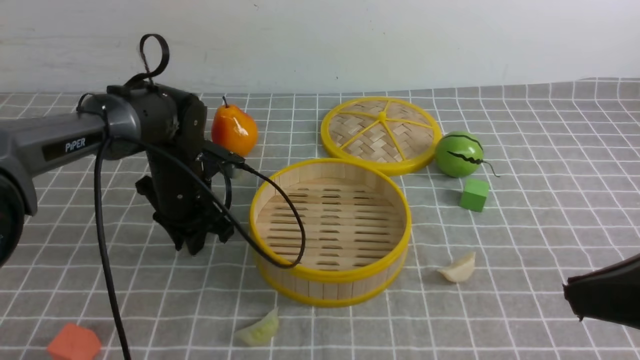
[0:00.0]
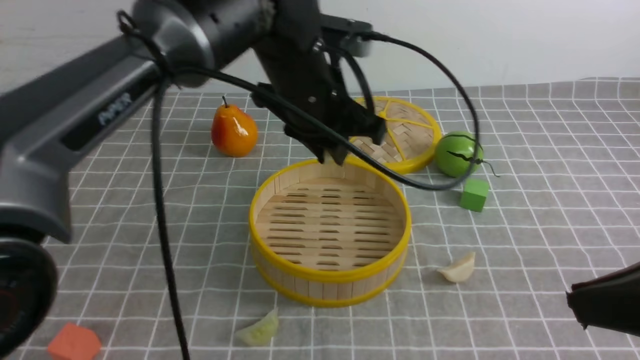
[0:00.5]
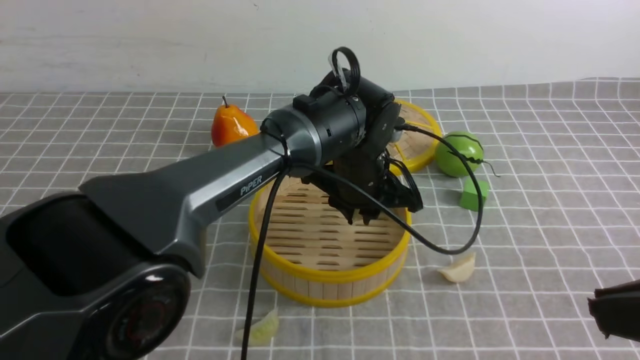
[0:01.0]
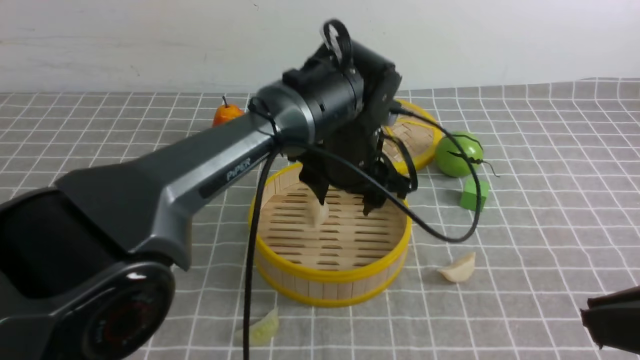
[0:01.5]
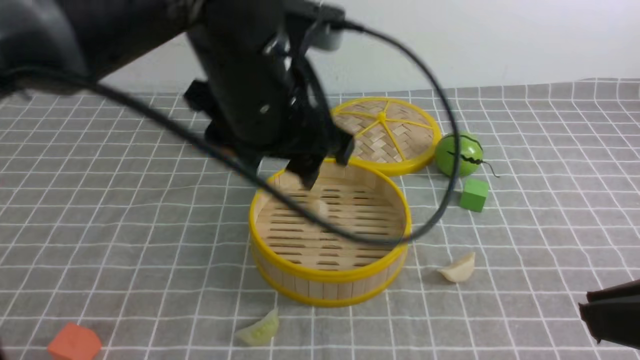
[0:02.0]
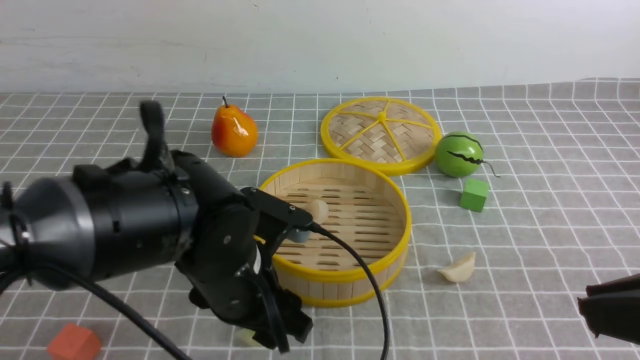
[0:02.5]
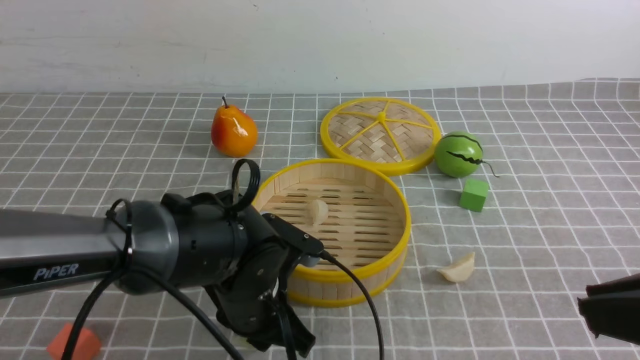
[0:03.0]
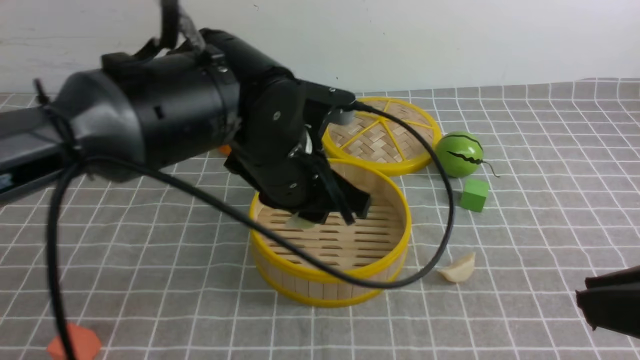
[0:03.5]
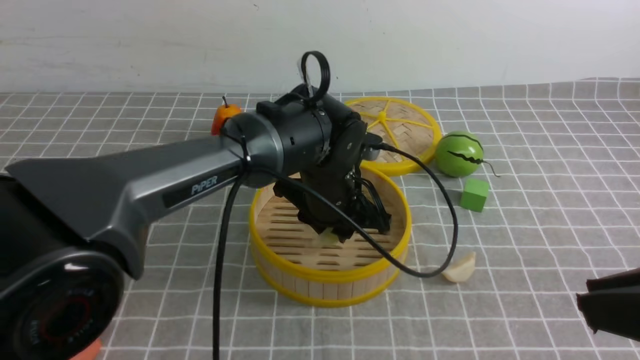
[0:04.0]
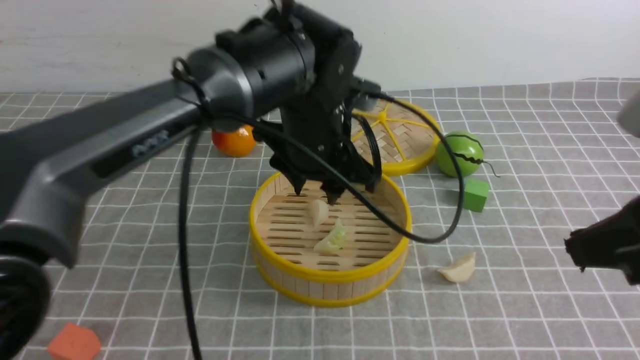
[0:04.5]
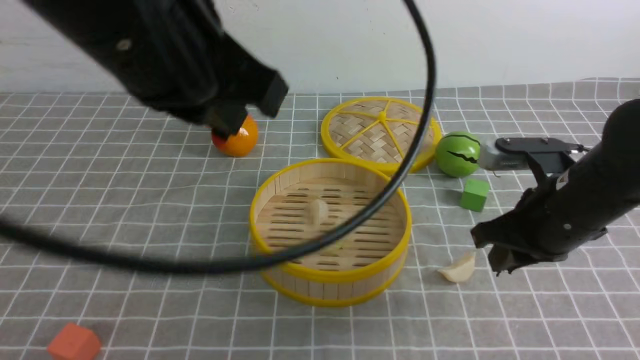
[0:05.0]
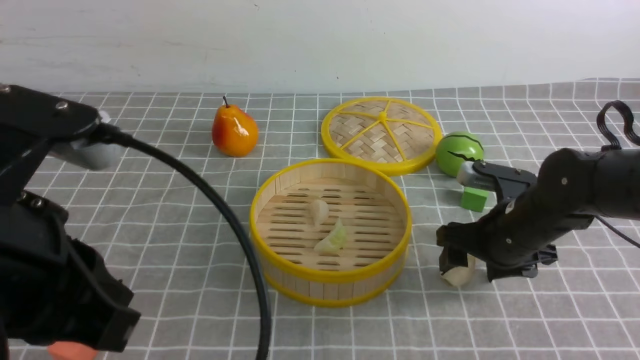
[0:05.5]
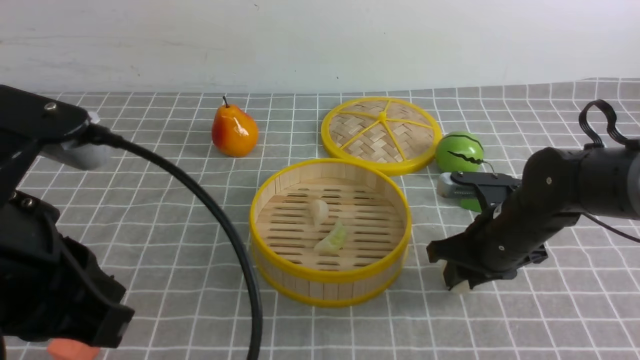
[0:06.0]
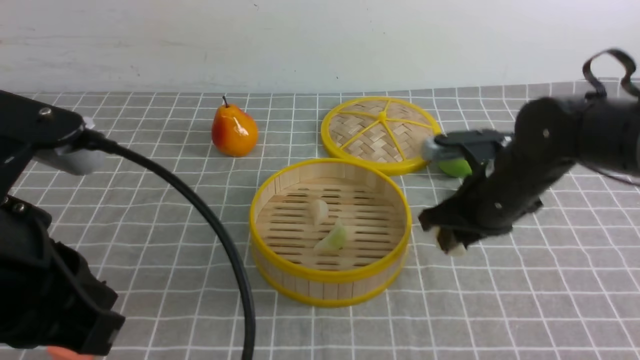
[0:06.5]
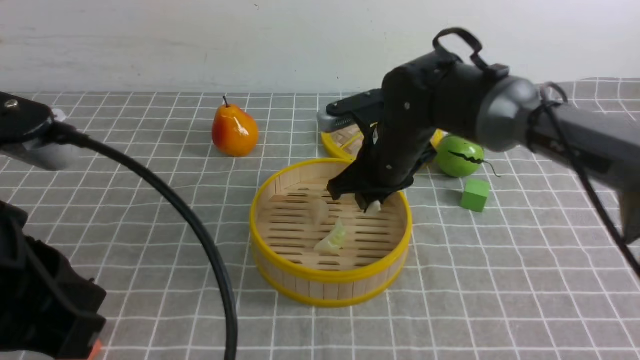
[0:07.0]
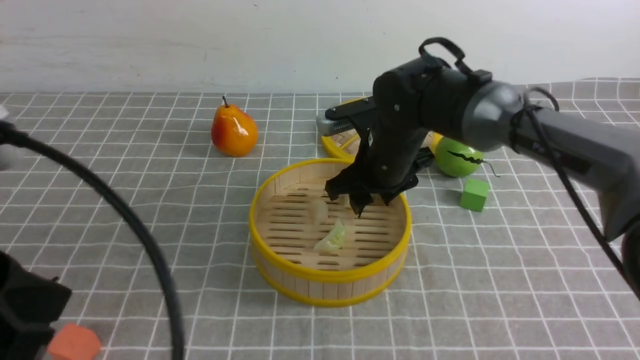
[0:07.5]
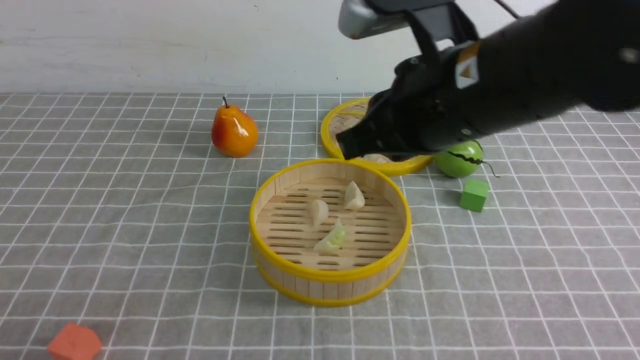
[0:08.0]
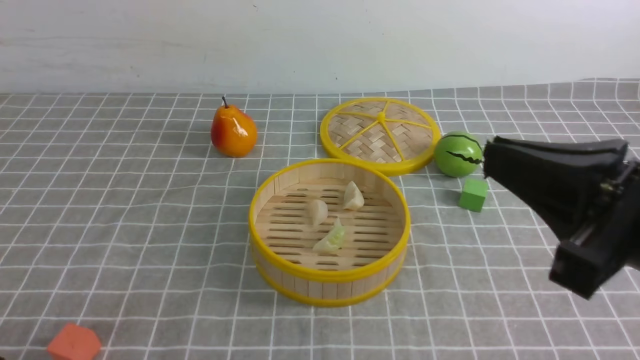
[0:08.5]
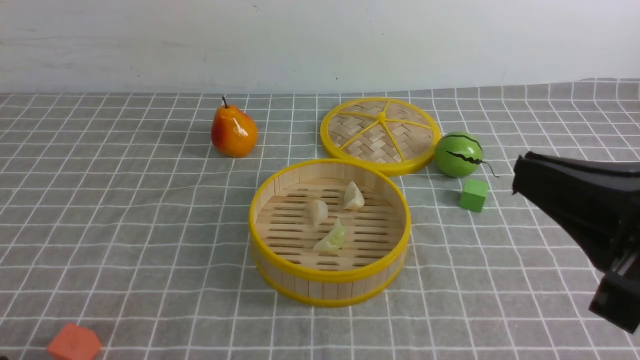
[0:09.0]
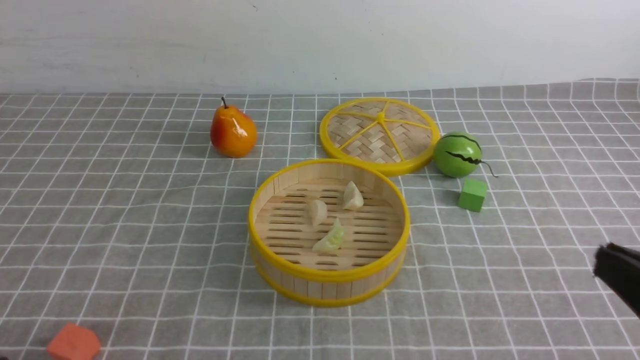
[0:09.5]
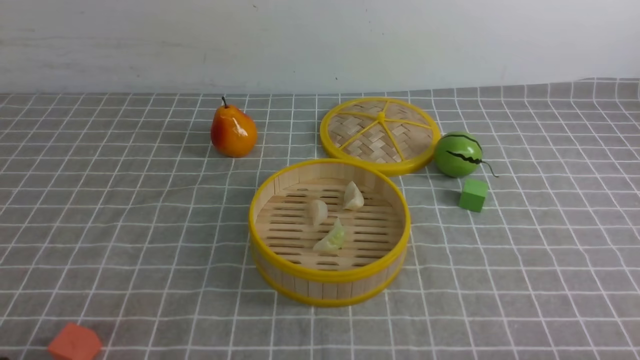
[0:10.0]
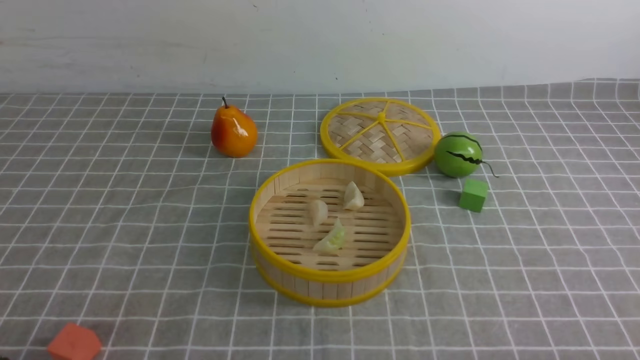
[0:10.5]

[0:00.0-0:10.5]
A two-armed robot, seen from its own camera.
Task of the whole recording: put the dumplings into the steamer on the table with the grey tablecloth.
Step, 0:00.5 to 0:01.0: use the left arm to put the dumpling into the steamer.
Step, 0:01.5 to 0:03.0: use the left arm to grab a dumpling.
Step, 0:03.5 to 0:04.0: use the left arm to put the dumpling into the steamer.
Step, 0:04.5 to 0:06.0: use the right arm to grab a dumpling.
Step, 0:06.5 to 0:07.5: use the right arm to put the dumpling into the steamer.
0:00.0 to 0:02.0: The left gripper heads upward, backward and to the right, covering approximately 25 cm, and opens its fingers.
0:02.0 to 0:04.0: The left gripper swings up and down, roughly 15 cm each way, with 2 reversals, and closes.
0:04.0 to 0:06.5: The right gripper shifts about 30 cm forward and downward, and opens and closes again, while the left gripper heads backward, to the left and upward, covering roughly 35 cm, and closes.
0:06.5 to 0:08.5: The right gripper heads backward and upward, covering some 25 cm, and closes up. Meanwhile the left gripper travels backward, downward and to the left by roughly 15 cm.
0:08.5 to 0:10.5: The right gripper heads downward, to the right and backward, covering roughly 25 cm.

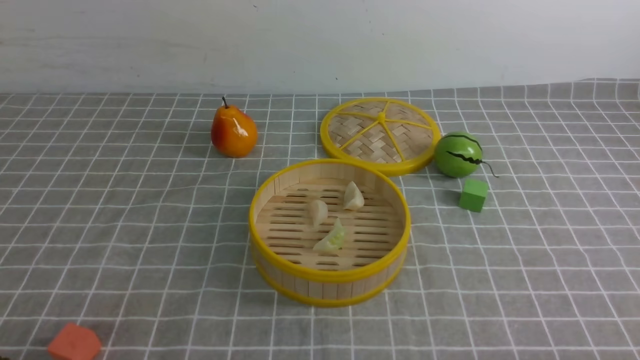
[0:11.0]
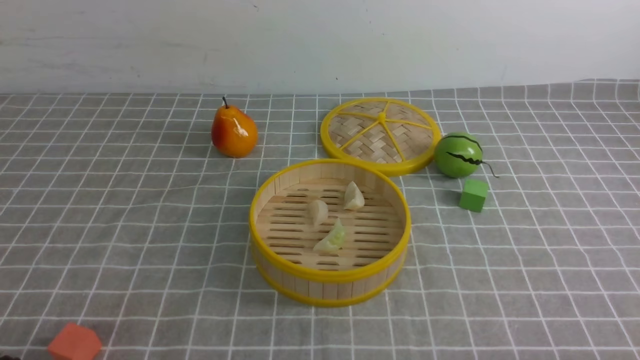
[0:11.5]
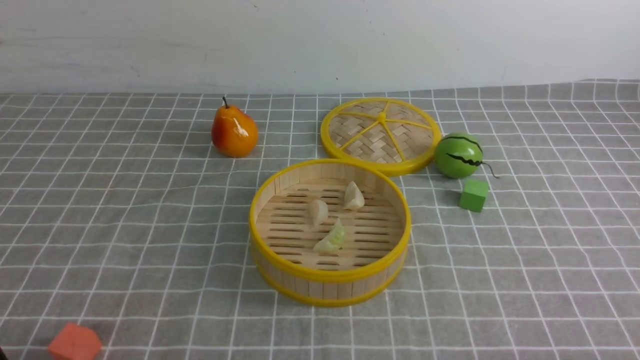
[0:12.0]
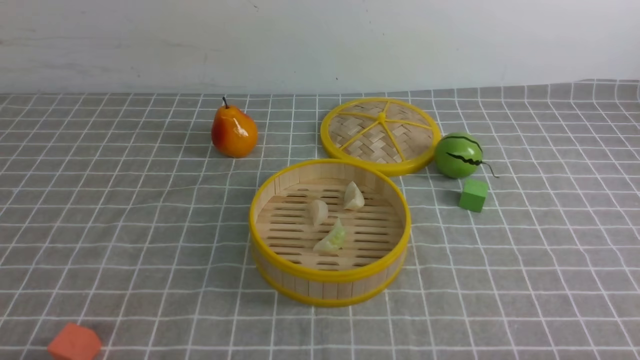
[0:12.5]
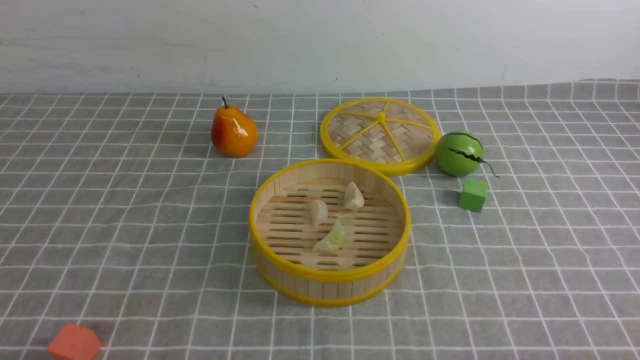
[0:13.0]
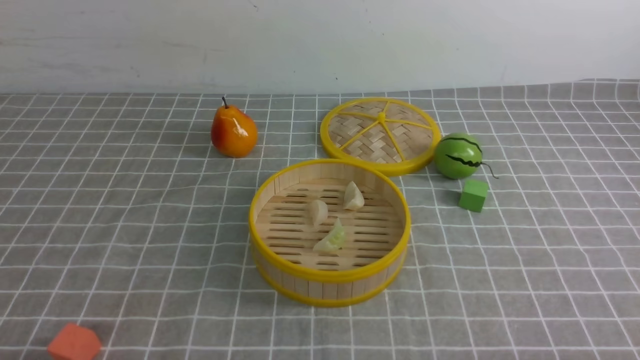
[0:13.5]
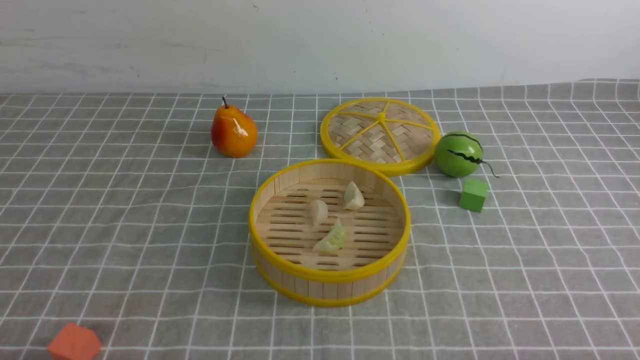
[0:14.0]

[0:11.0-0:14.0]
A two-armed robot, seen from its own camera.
Task of the whole recording: put the dumplings into the steamer on the table with the grey tablecloth.
0:12.5 to 0:14.0: Both grippers stay put.

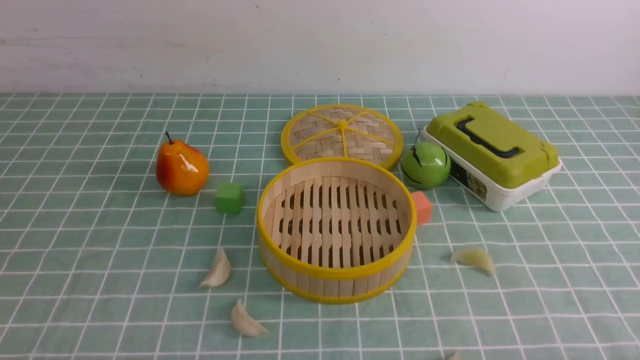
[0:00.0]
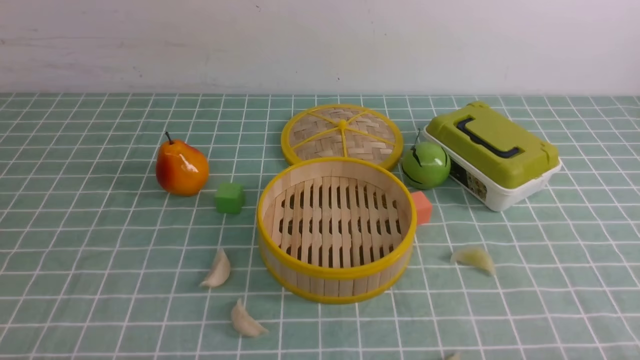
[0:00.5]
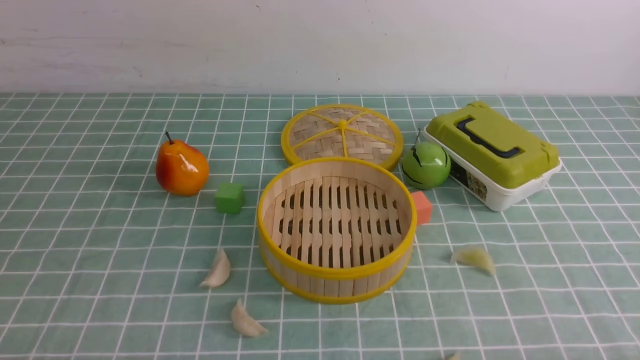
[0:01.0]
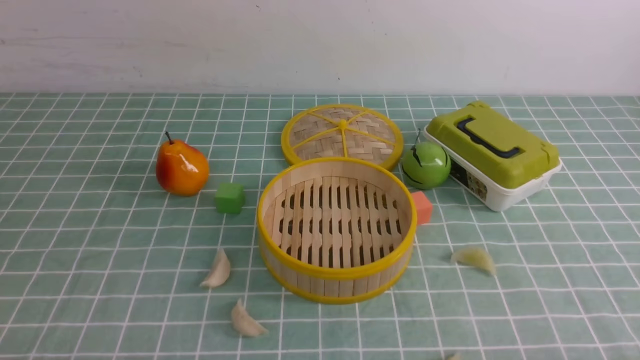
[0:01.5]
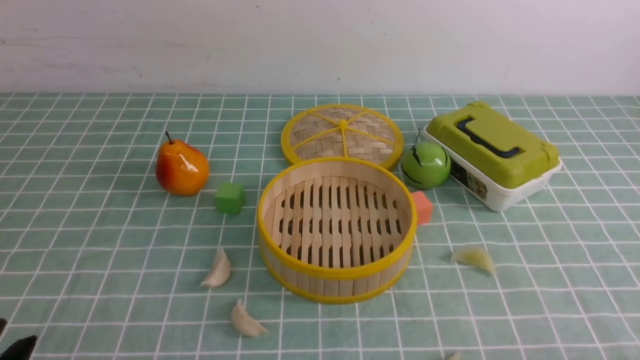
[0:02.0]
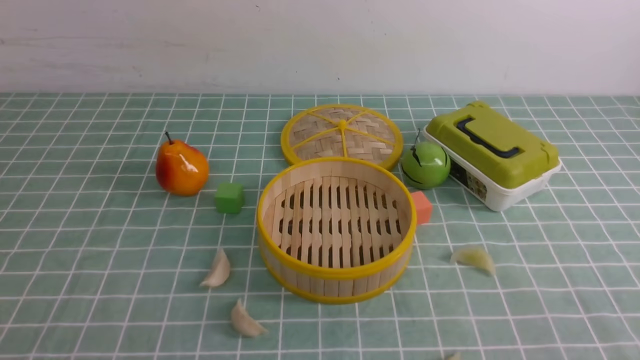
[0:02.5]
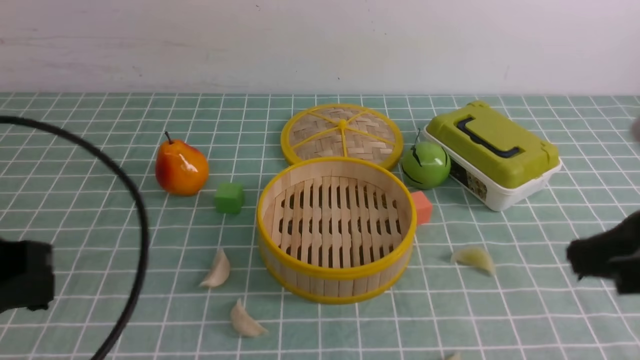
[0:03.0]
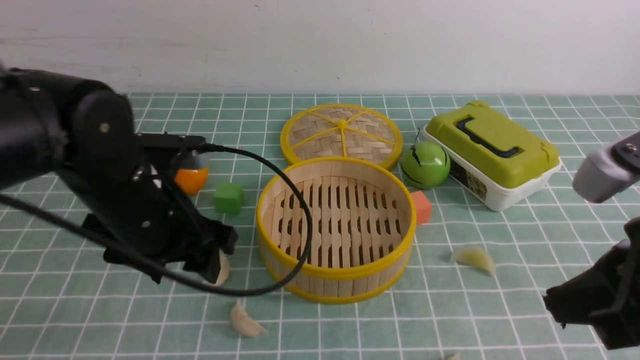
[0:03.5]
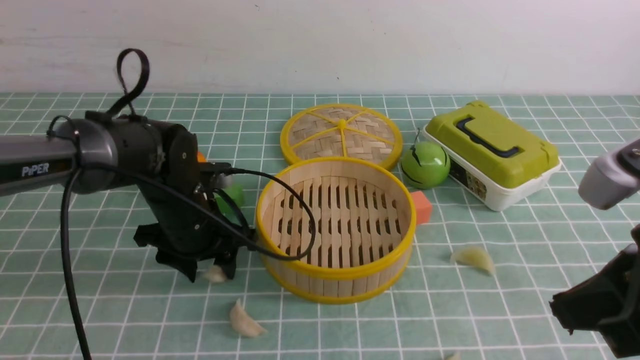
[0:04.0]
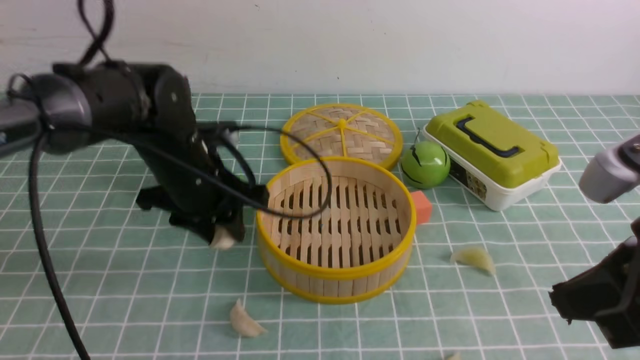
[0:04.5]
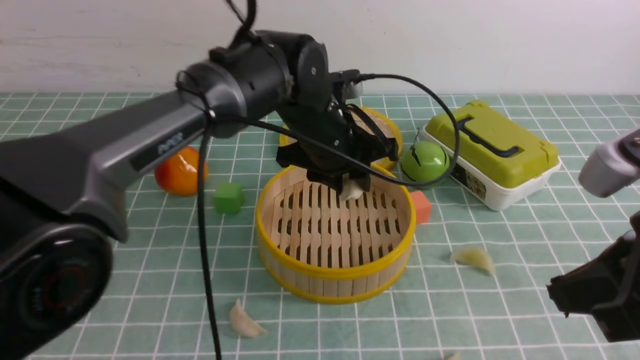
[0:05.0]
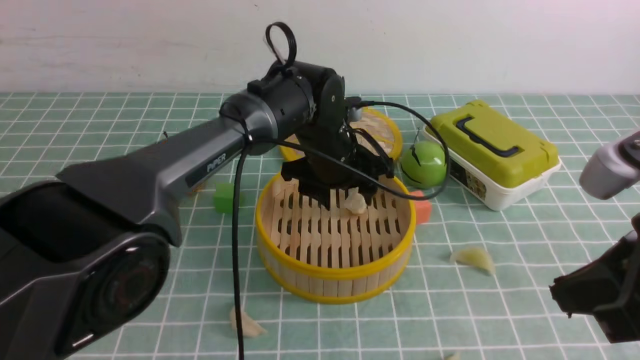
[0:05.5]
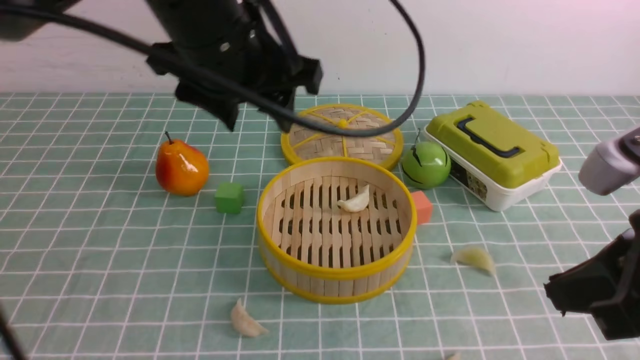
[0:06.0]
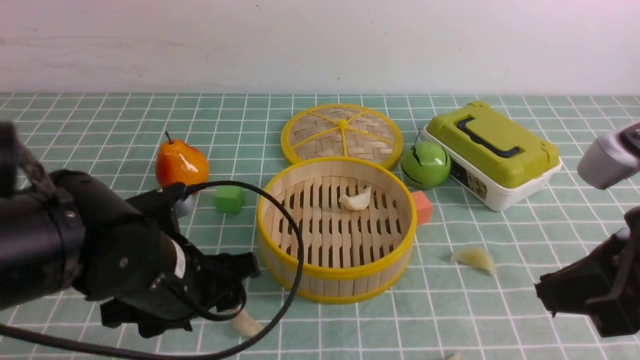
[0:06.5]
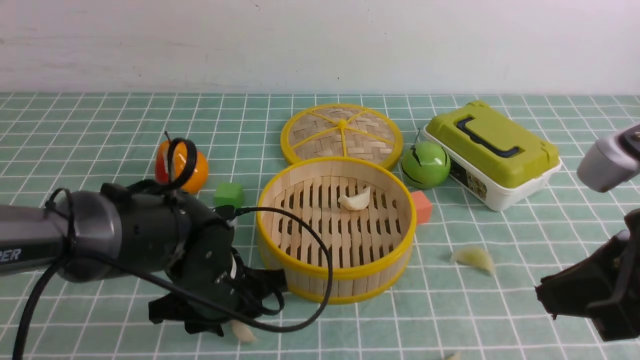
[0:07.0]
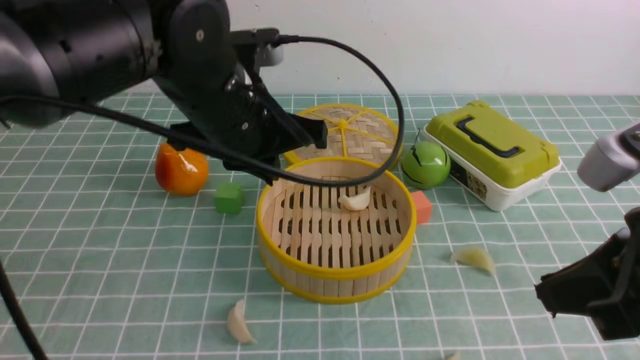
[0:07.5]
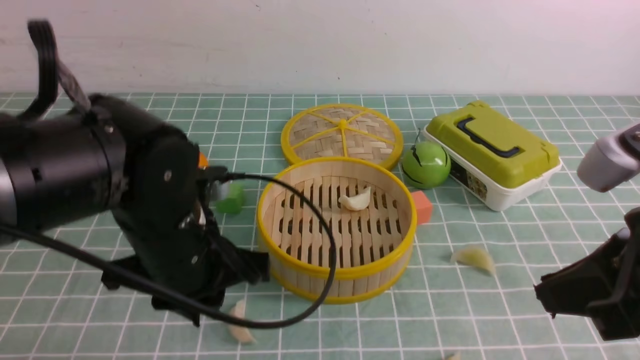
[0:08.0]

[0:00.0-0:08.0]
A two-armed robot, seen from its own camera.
Task of the whole recording: put the dumplings into the steamer on the table with the blue tablecloth.
Step, 0:00.0 to 0:04.0: use the left arm to grab a dumpling.
Step, 0:04.5 to 0:05.5: use the left arm to put the dumpling into the steamer.
0:02.0 to 0:04.0: The right gripper shifts some 20 cm upward, forward and to the left, and closes up. Meanwhile the left gripper is displaced forward by roughly 30 cm, and closes and opens again.
0:04.0 to 0:06.0: The left gripper shifts approximately 20 cm upward.
0:06.0 to 0:08.0: The left gripper swings up and down, some 20 cm each way, with 2 reversals, and closes.
